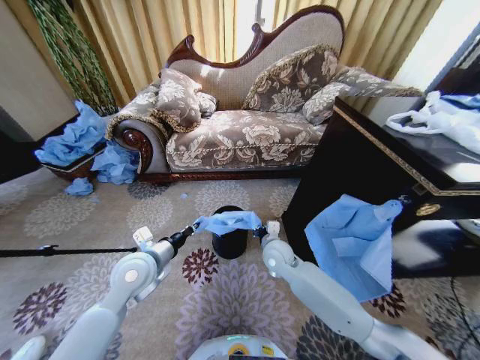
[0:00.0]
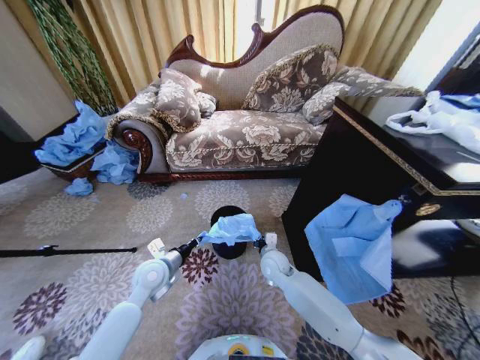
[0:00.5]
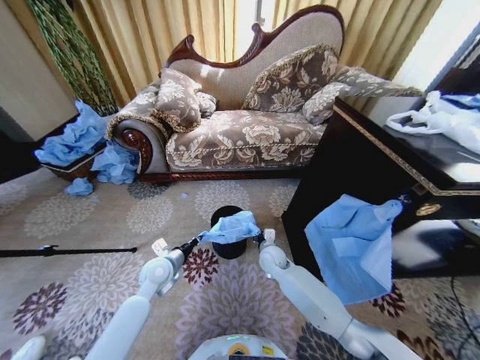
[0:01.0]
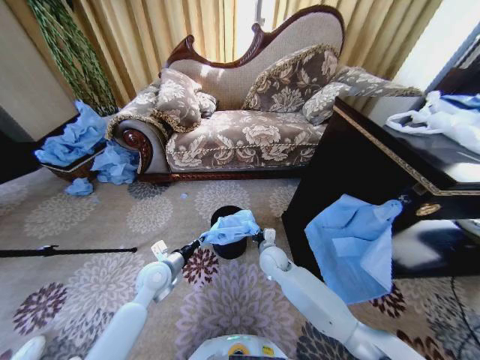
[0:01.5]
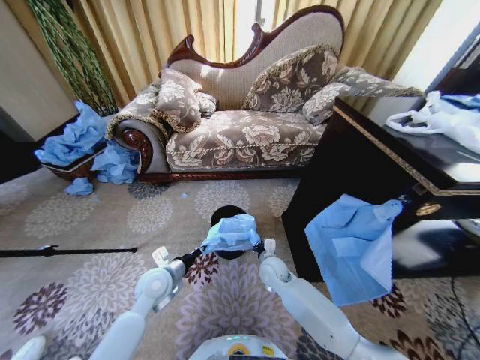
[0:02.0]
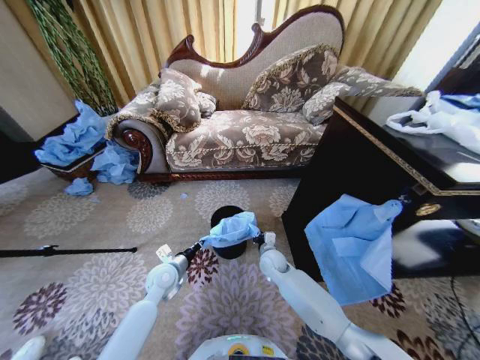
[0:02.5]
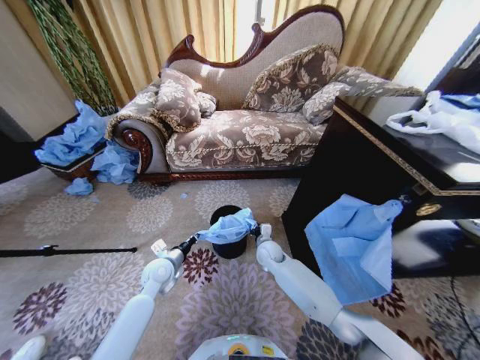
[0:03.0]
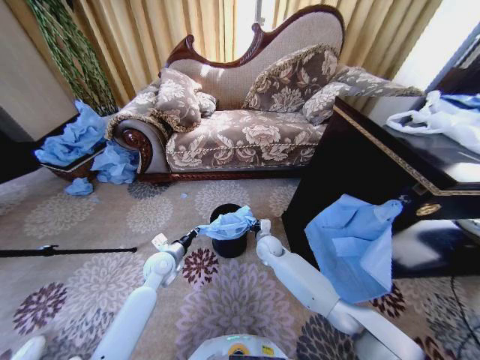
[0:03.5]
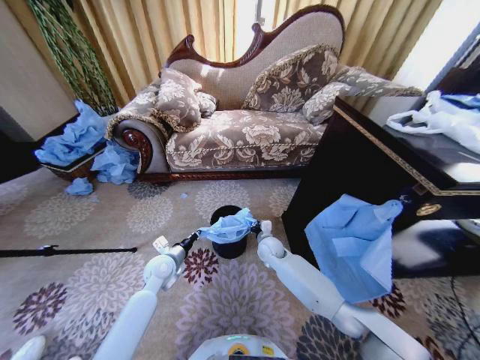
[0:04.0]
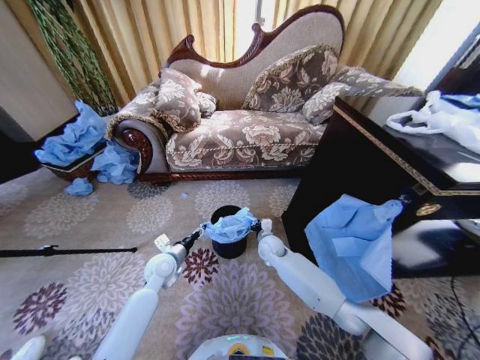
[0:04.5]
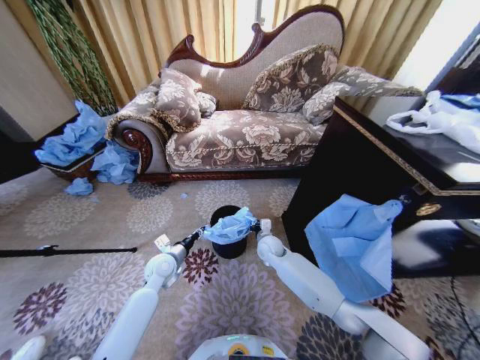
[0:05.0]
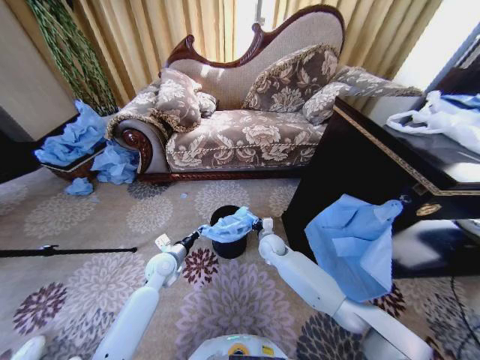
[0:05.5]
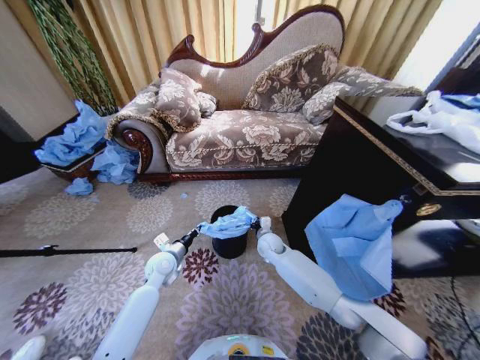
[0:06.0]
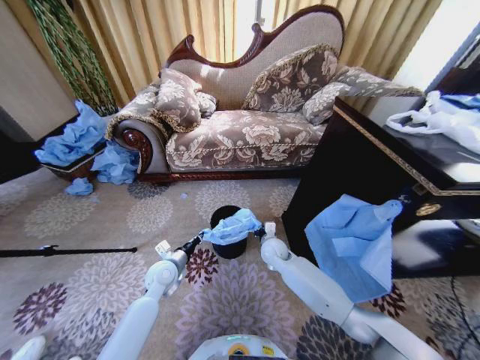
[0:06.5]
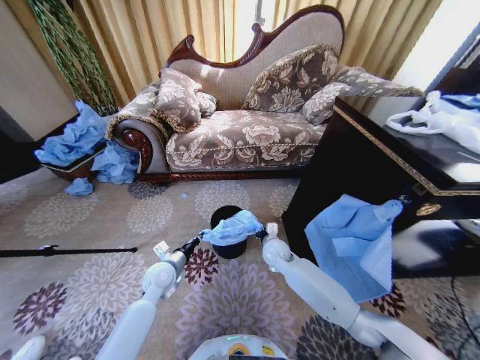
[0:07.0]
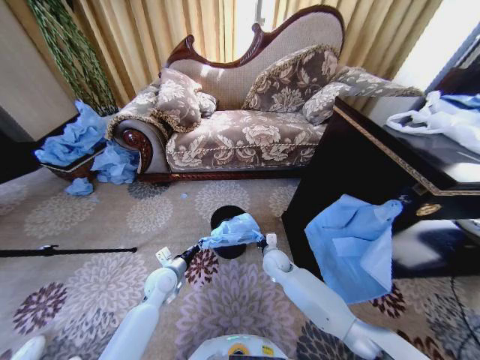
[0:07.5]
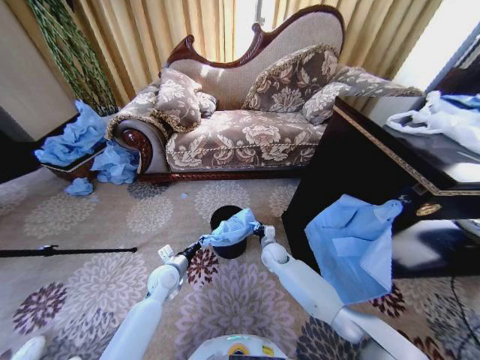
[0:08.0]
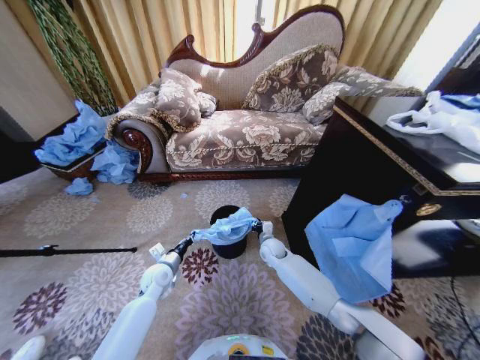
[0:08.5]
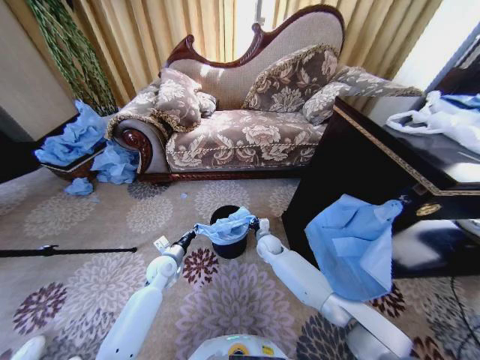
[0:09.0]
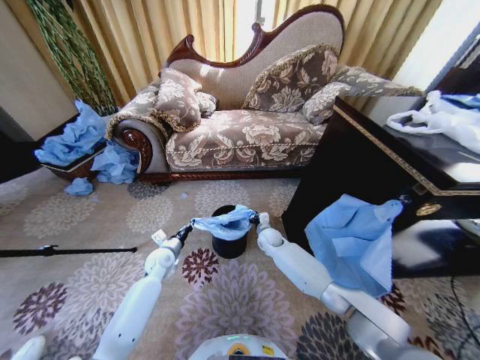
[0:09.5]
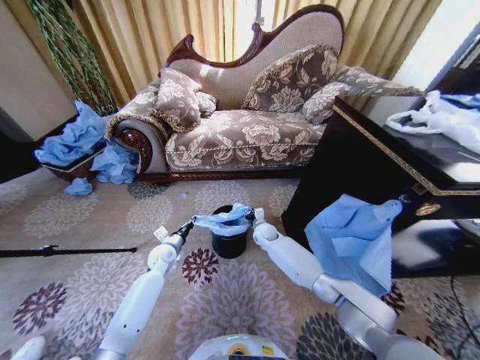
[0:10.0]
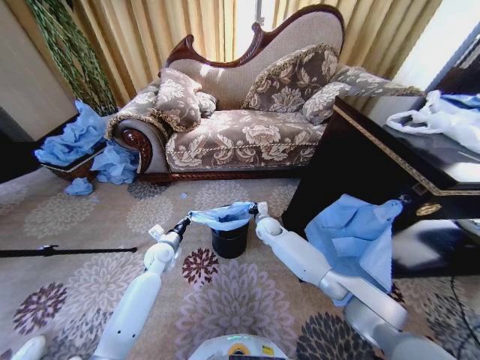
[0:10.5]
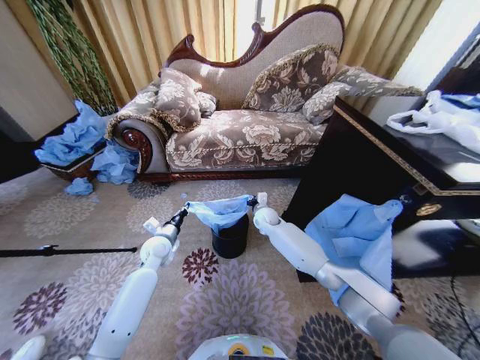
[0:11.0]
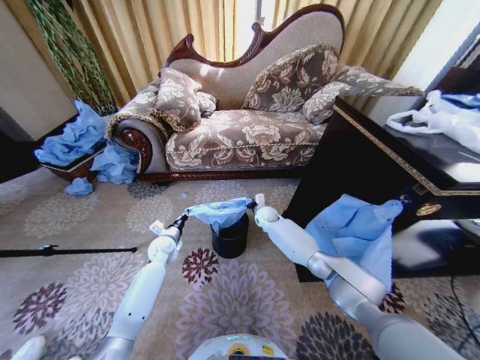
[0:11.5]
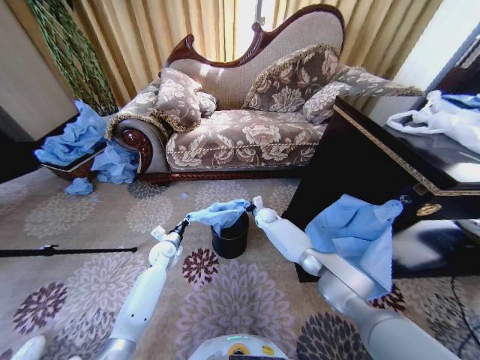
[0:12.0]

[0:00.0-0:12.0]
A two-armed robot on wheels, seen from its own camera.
Task of the whole recording: Place a garbage bag over the trash bin.
0:00.0 to 0:02.0: The grippers both shift downward by approximately 10 cm.
0:02.0 to 0:04.0: The two grippers go about 5 cm forward.
0:04.0 to 0:06.0: The left gripper opens and closes again.
0:06.0 to 0:08.0: The right gripper moves approximately 5 cm.
0:08.0 to 0:10.0: The two grippers go some 10 cm forward.
0:10.0 to 0:12.0: The right gripper heads forward, covering some 10 cm. The left gripper moves approximately 5 cm upward and comes back.

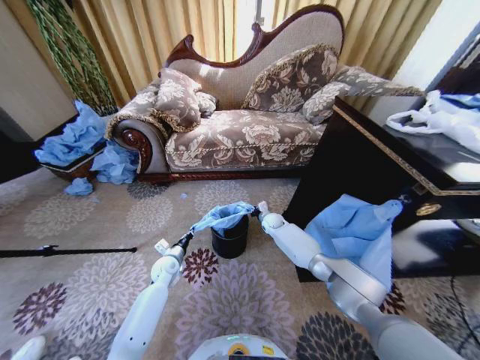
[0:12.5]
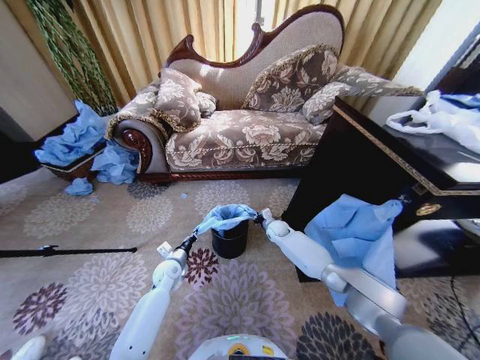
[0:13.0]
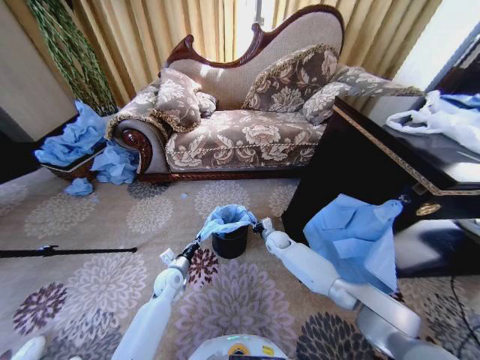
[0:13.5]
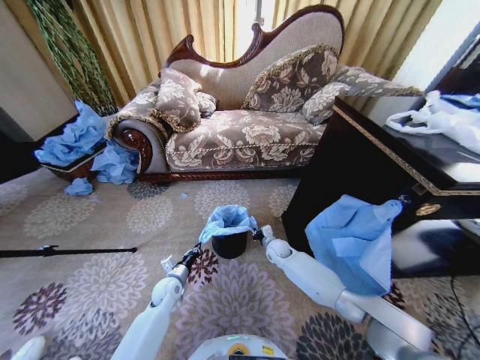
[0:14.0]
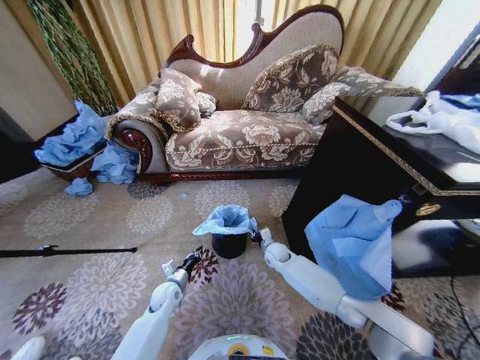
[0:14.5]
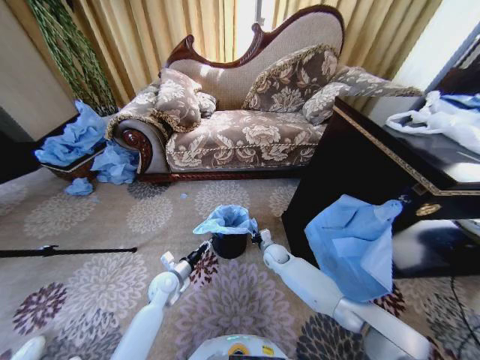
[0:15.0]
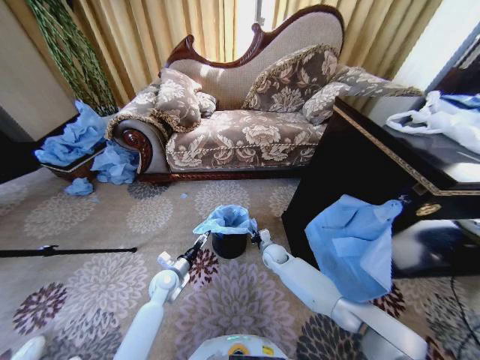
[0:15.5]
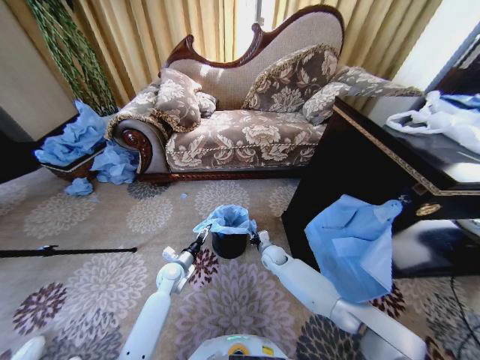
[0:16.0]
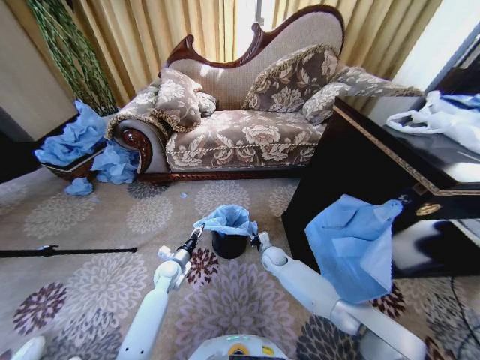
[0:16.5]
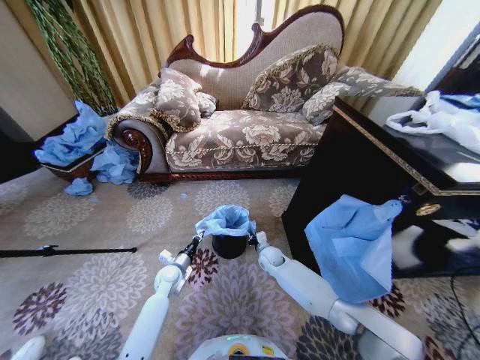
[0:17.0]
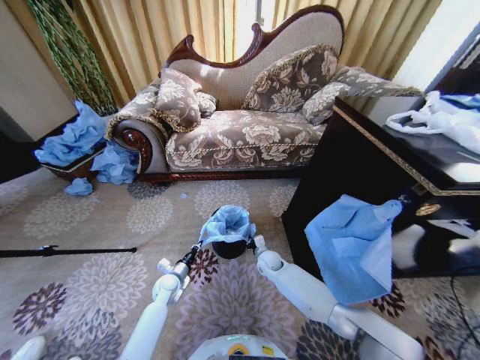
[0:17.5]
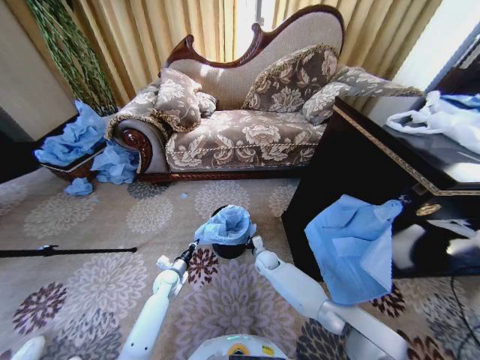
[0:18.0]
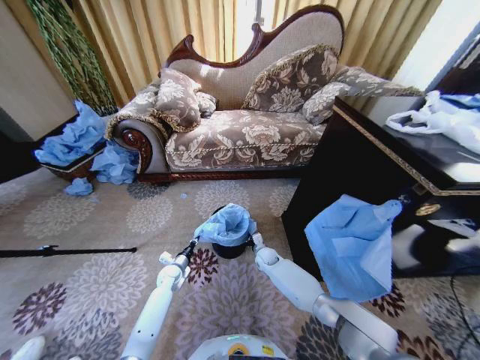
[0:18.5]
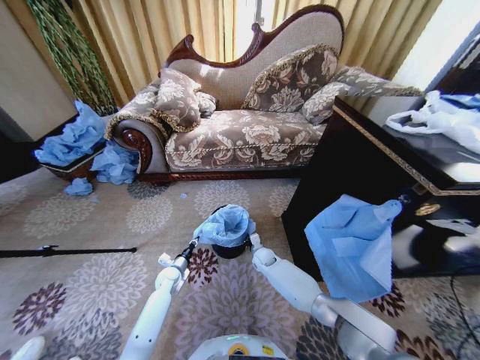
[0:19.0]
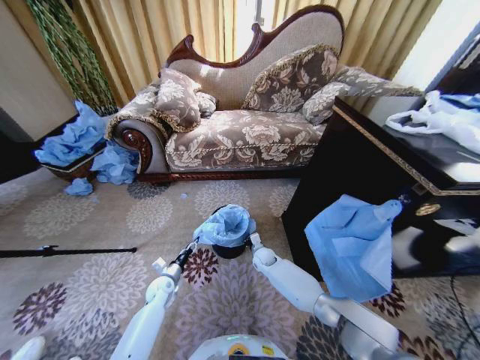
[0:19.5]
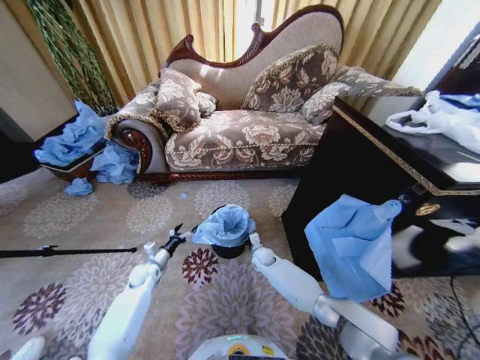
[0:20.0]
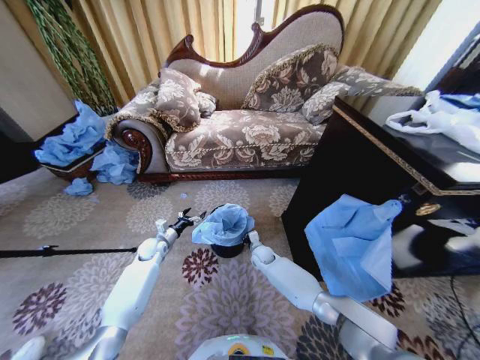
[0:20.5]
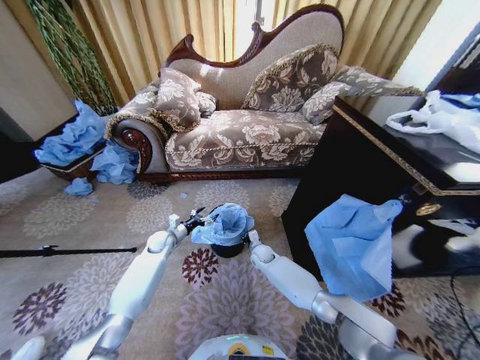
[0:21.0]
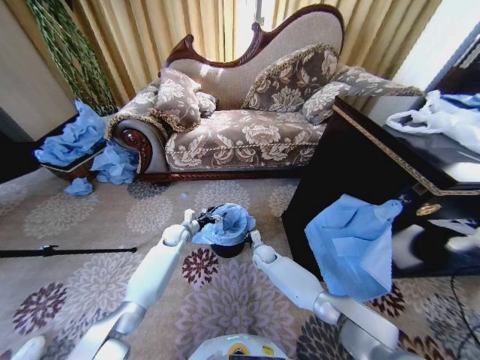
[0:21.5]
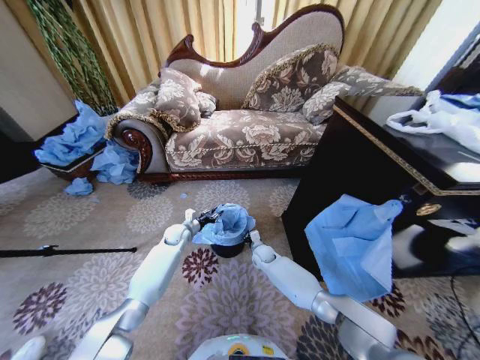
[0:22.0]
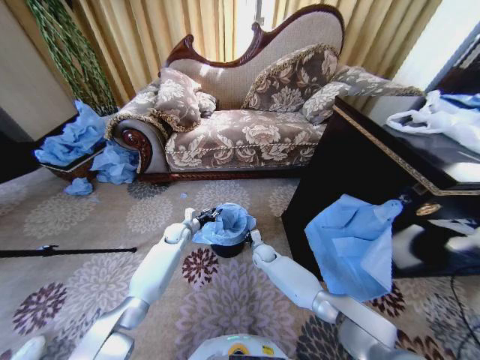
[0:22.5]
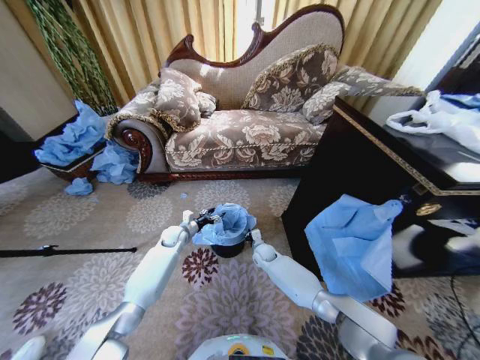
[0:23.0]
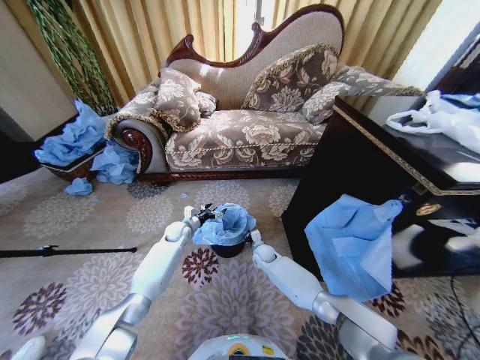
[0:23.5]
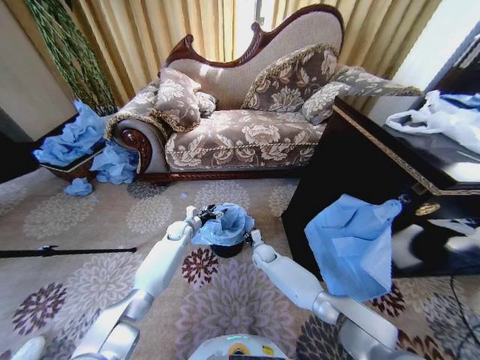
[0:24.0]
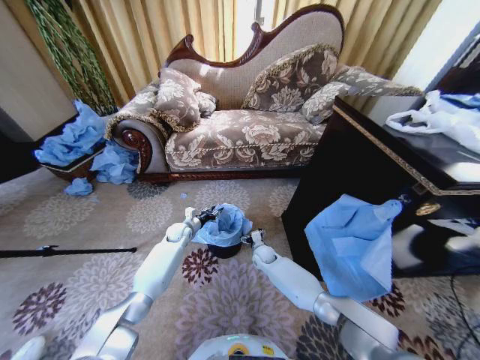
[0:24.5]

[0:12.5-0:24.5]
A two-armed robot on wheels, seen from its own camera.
Task of the whole recording: Place a garbage bag over the trash bin.
0:12.5 to 0:14.5: The left gripper travels backward by roughly 5 cm, while the right gripper travels backward by roughly 10 cm.
0:14.5 to 0:16.5: The left gripper travels forward by roughly 5 cm, and opens.
0:16.5 to 0:18.5: The left gripper travels downward by roughly 5 cm, and closes its fingers.
0:18.5 to 0:20.5: The left gripper heads upward, forward and to the left, covering some 15 cm, and opens up.
0:20.5 to 0:22.5: The left gripper goes approximately 10 cm to the right and forward, and closes.
0:22.5 to 0:24.5: The left gripper opens, then closes again, while the right gripper opens.

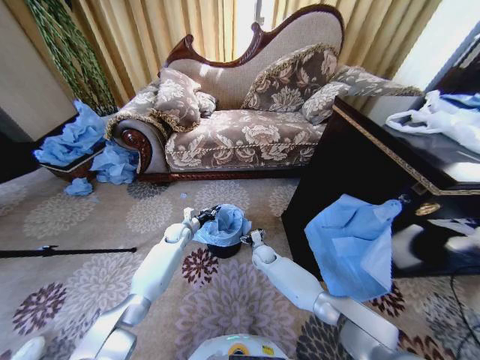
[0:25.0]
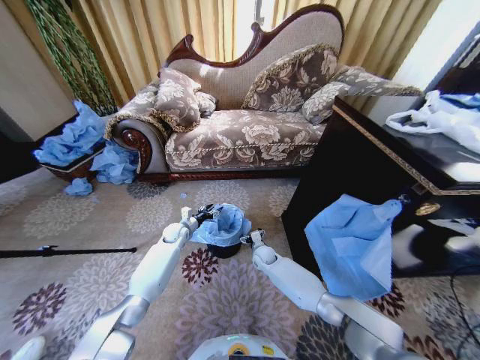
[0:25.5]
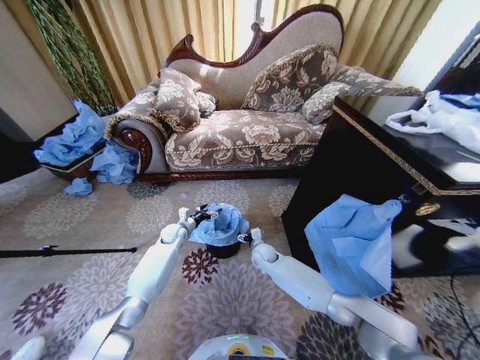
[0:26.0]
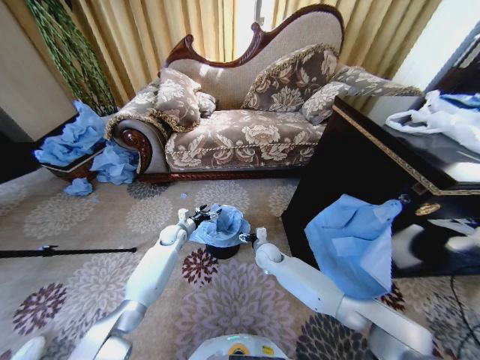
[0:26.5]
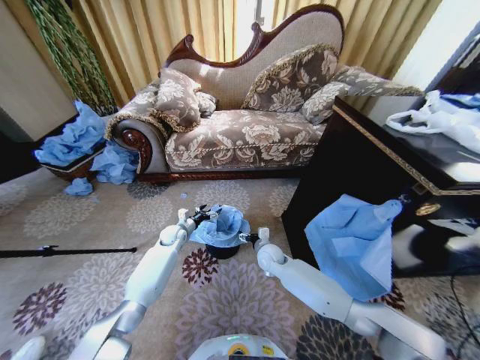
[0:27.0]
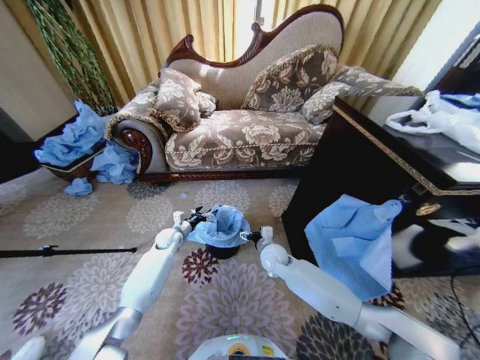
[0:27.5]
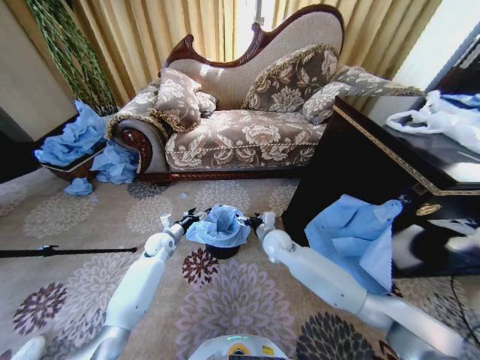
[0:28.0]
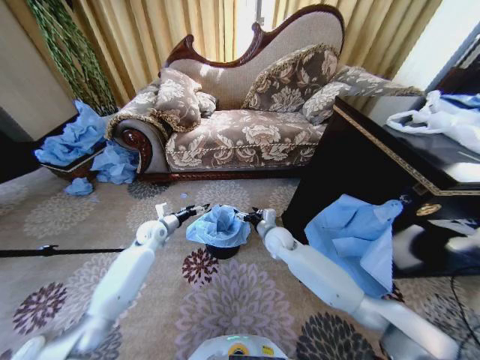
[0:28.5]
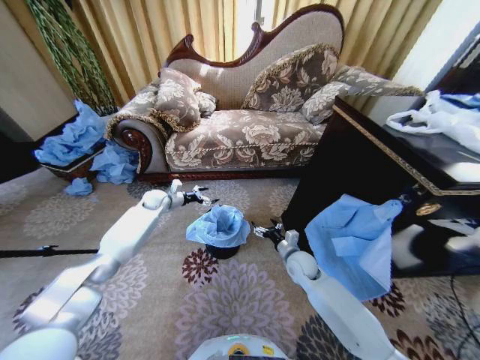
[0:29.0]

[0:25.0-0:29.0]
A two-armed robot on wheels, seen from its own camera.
Task of the whole recording: Place a garbage bag over the trash bin.
0:25.0 to 0:27.0: The right gripper is displaced upward by approximately 10 cm; the left gripper opens up.
0:27.0 to 0:29.0: The left gripper heads upward, forward and to the left, covering approximately 15 cm. The right gripper is displaced to the right by roughly 10 cm.
